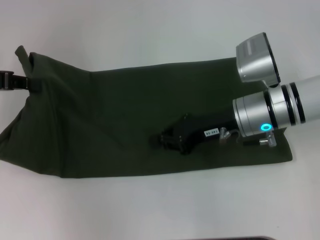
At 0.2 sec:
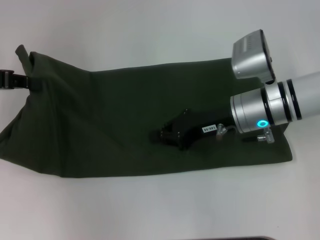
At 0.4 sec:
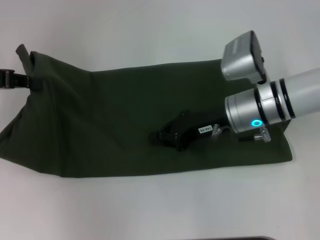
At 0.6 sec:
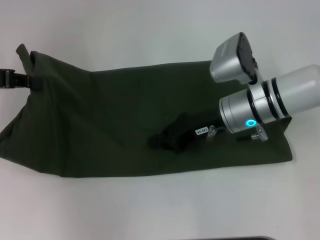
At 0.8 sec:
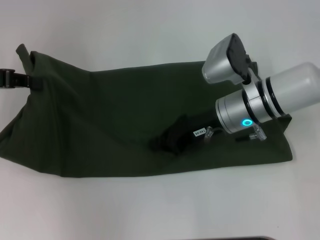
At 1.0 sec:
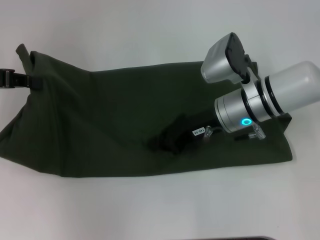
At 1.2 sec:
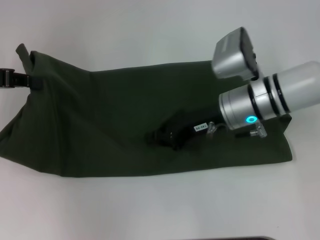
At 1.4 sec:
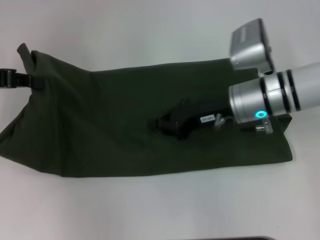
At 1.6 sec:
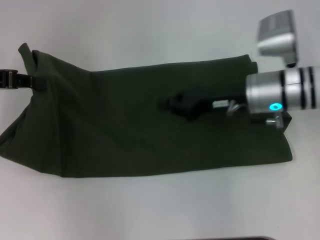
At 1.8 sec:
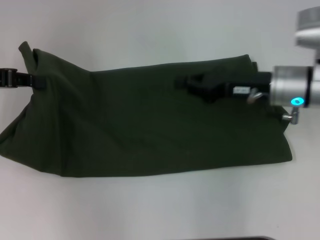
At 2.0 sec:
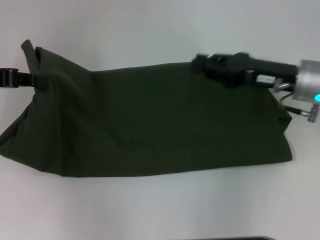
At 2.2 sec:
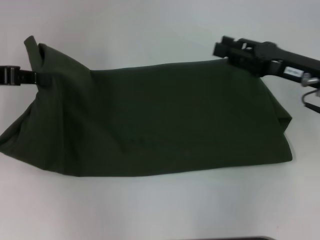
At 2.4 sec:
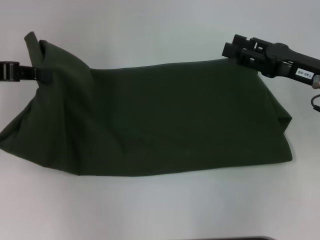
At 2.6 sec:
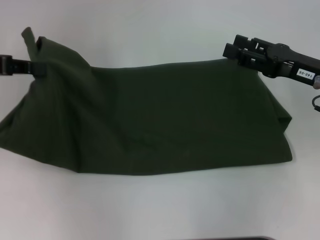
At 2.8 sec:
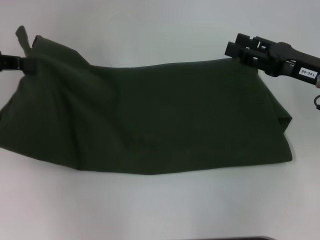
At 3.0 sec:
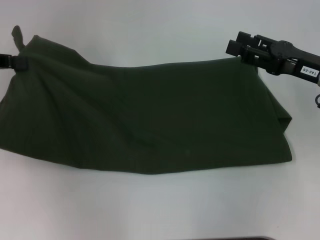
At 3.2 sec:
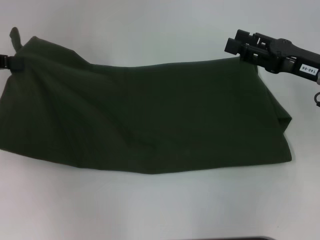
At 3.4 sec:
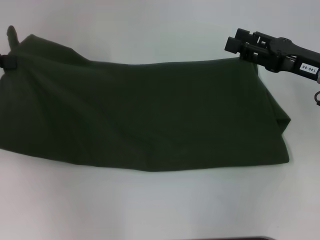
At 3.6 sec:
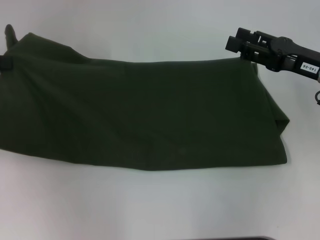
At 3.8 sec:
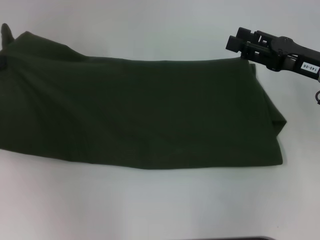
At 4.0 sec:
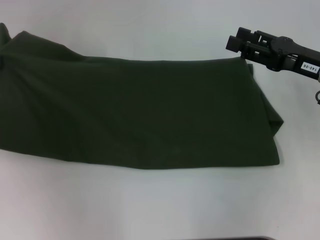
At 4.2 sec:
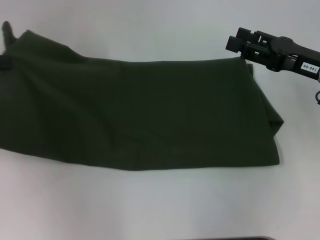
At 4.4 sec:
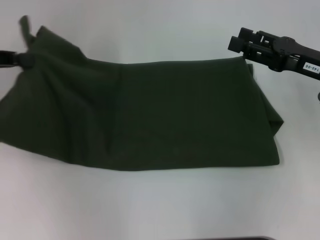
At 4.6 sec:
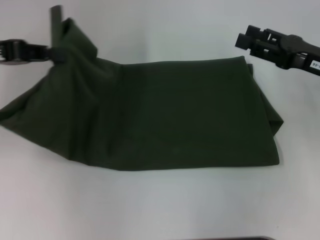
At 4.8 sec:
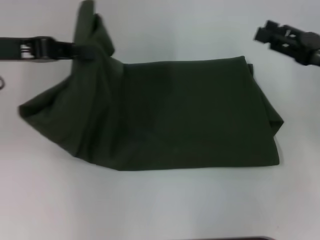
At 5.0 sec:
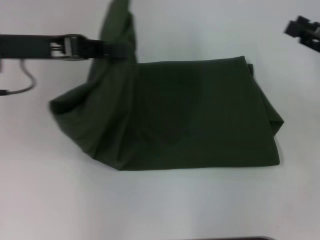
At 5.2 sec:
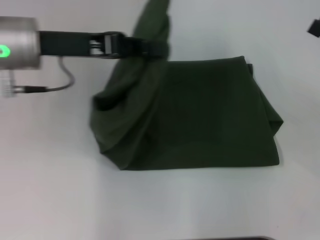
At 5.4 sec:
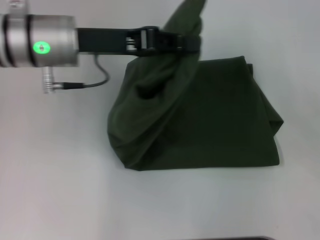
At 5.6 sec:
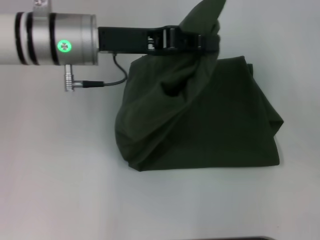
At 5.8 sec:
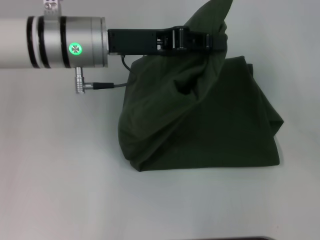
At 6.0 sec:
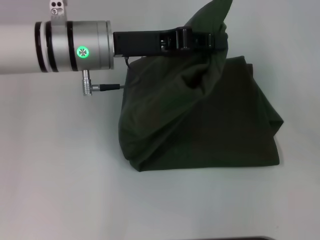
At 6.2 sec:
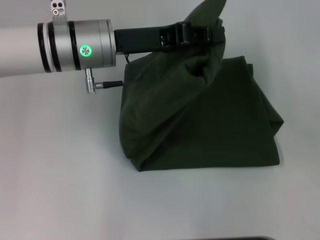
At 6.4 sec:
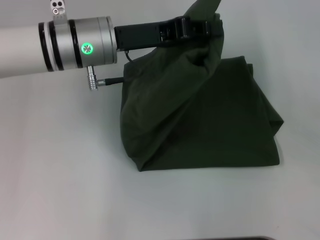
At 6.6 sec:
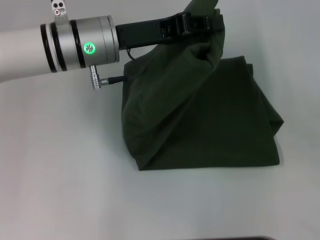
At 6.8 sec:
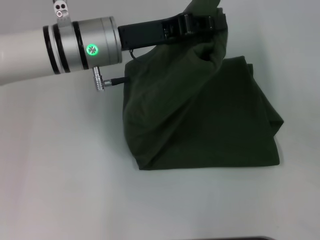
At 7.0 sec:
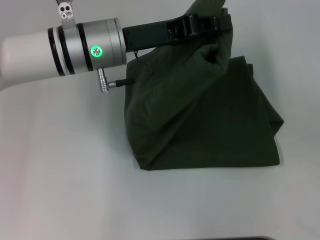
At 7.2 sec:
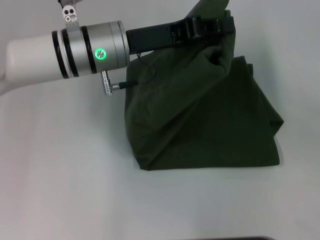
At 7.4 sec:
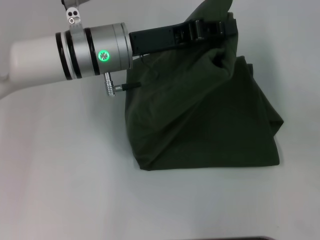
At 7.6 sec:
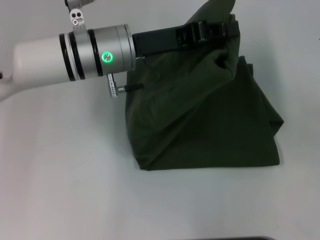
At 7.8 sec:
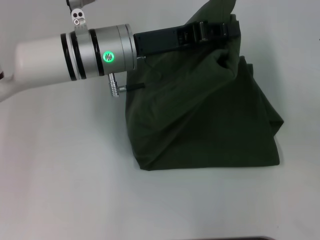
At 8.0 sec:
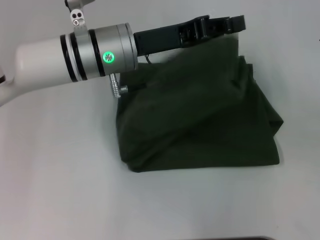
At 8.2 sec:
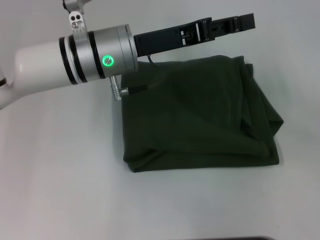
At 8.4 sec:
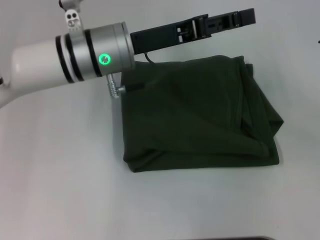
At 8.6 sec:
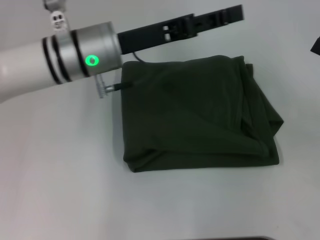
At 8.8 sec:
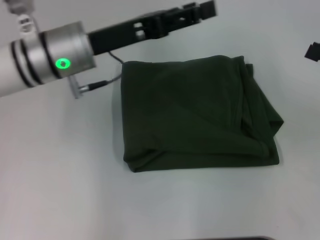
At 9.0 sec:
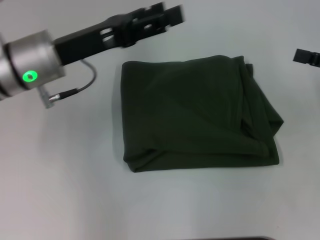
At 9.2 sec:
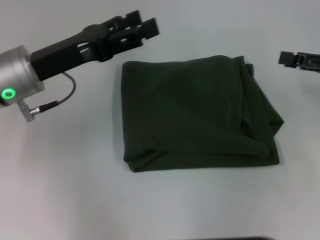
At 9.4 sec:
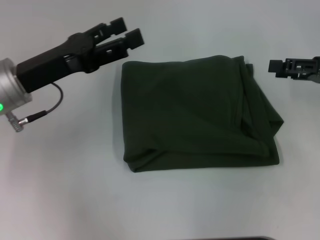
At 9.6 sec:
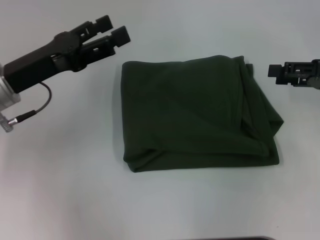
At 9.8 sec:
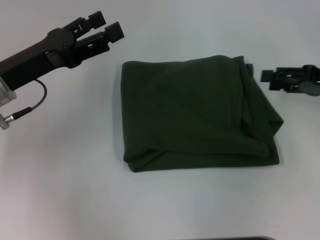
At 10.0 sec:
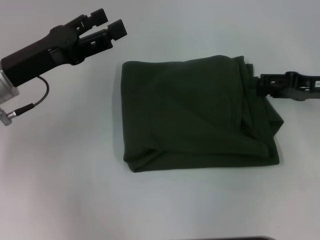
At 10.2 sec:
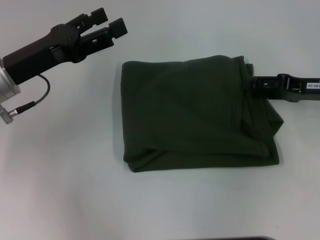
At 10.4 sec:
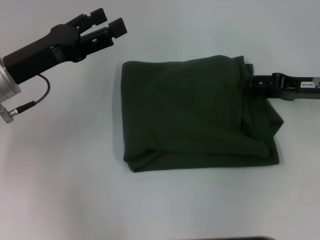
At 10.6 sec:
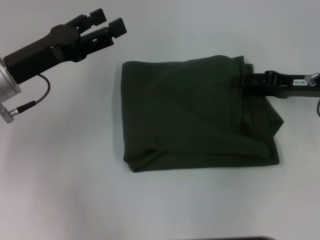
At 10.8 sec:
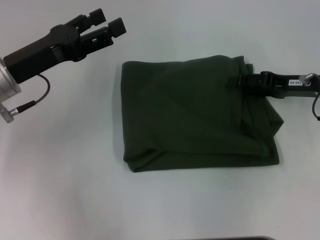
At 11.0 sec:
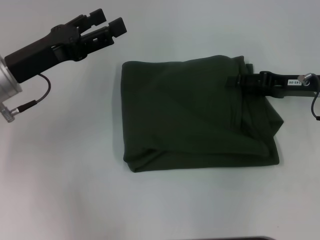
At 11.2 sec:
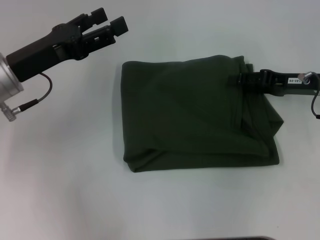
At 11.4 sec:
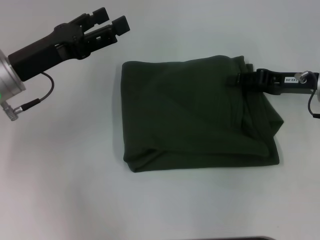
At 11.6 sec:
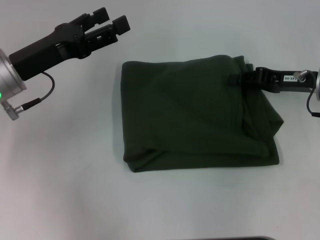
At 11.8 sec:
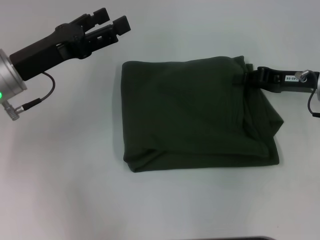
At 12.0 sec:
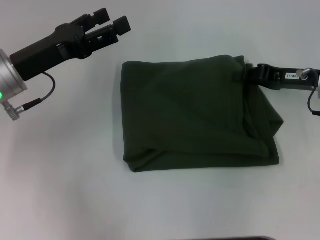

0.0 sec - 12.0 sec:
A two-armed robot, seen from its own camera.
Step, 0.0 sec - 8.2 sec: Fold the clothes with your left hand.
0.0 sec - 1.6 sec: The grippers make only small movements.
1.6 sec - 3.0 sec: The right gripper shifts some 10 cm to the right, and opens its fingers.
3.0 sec - 4.4 sec: The grippers stay close to where they were, moving slightly.
4.4 sec - 6.0 sec: The right gripper goes some 10 cm to the right and backward; the left gripper travels to the right by roughly 20 cm.
6.0 sec - 7.6 sec: The grippers make only small movements.
7.6 sec - 9.0 sec: The left gripper is displaced to the left by some 10 cm, and opens.
9.0 sec - 10.4 sec: Both grippers move to the left, about 5 cm.
10.4 sec - 12.0 sec: The right gripper closes its fingers.

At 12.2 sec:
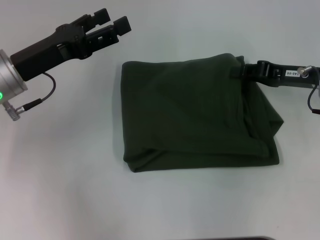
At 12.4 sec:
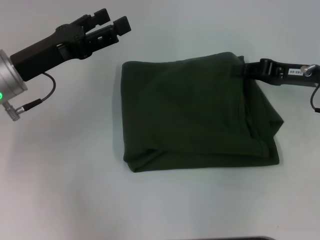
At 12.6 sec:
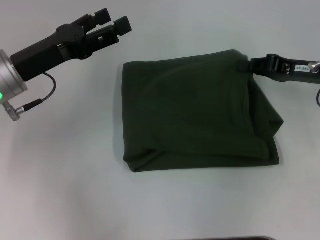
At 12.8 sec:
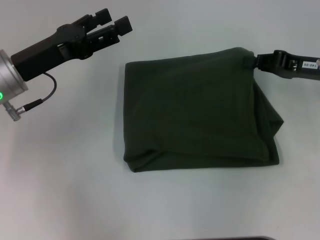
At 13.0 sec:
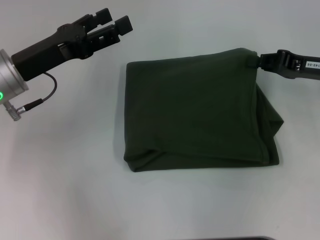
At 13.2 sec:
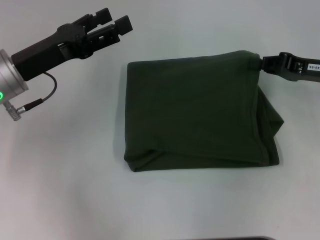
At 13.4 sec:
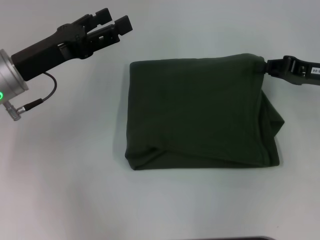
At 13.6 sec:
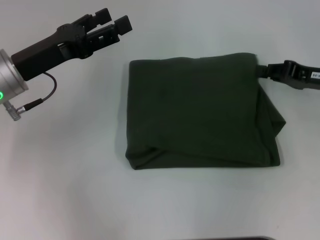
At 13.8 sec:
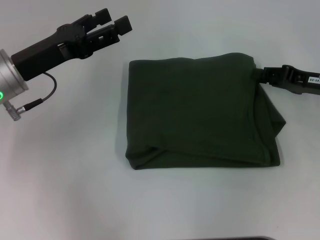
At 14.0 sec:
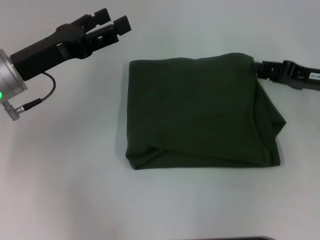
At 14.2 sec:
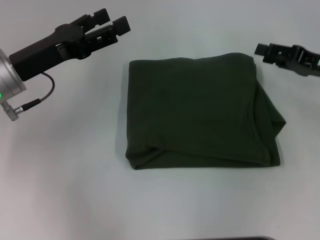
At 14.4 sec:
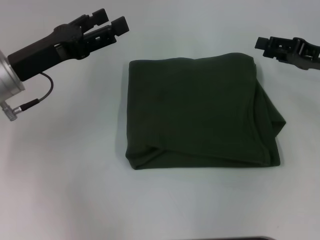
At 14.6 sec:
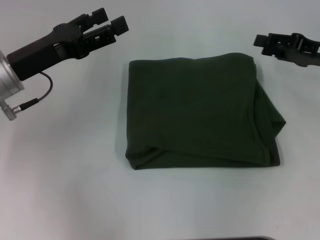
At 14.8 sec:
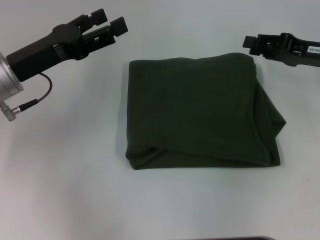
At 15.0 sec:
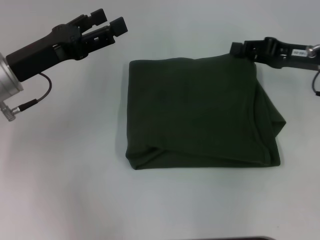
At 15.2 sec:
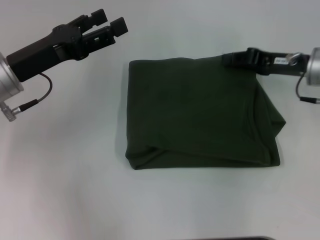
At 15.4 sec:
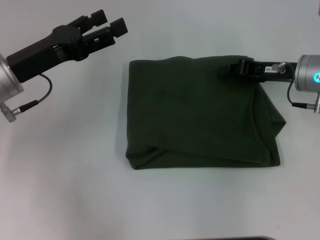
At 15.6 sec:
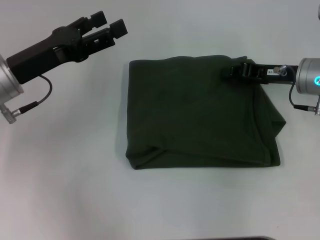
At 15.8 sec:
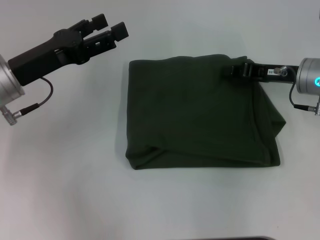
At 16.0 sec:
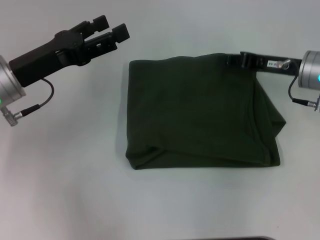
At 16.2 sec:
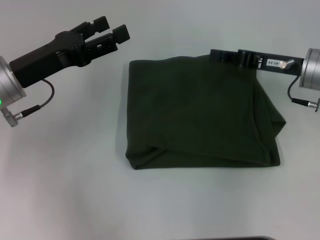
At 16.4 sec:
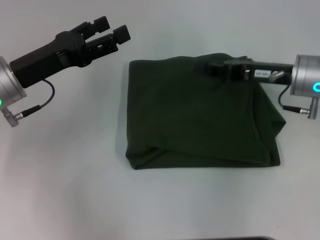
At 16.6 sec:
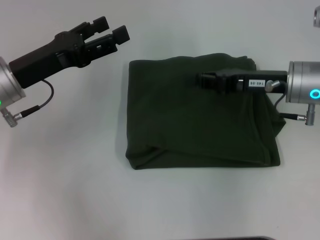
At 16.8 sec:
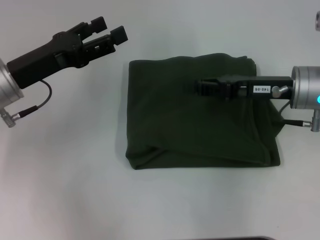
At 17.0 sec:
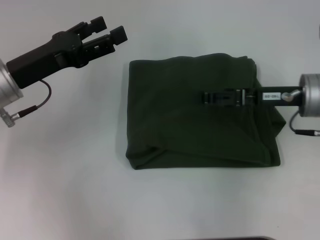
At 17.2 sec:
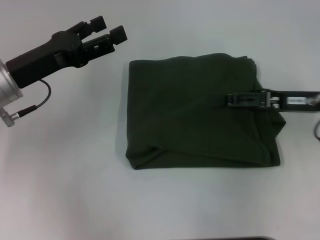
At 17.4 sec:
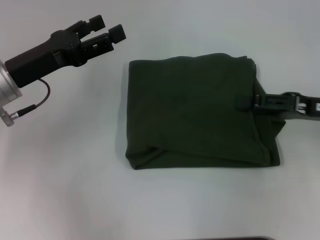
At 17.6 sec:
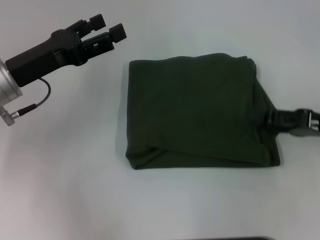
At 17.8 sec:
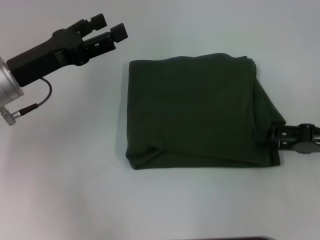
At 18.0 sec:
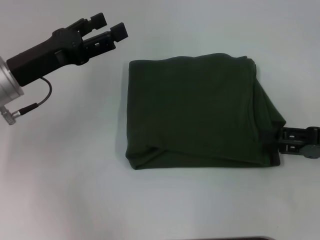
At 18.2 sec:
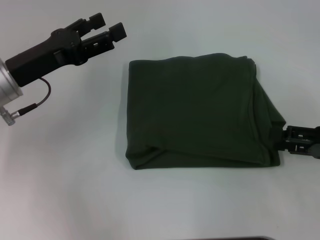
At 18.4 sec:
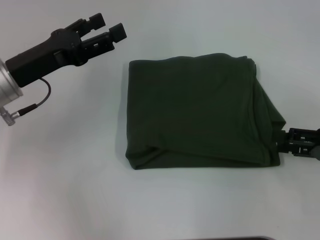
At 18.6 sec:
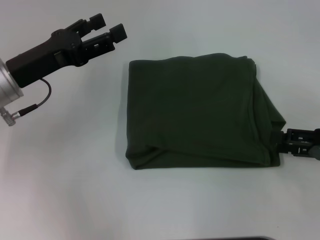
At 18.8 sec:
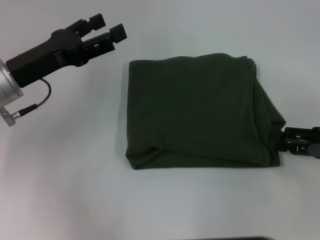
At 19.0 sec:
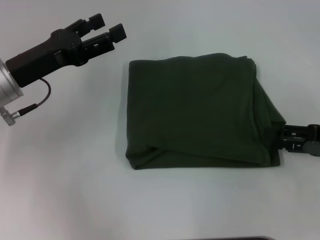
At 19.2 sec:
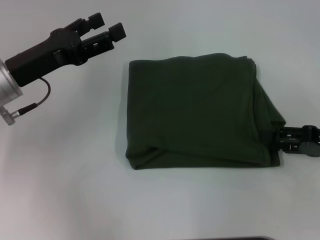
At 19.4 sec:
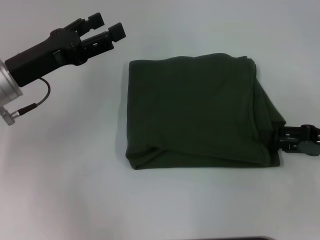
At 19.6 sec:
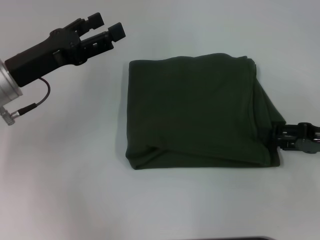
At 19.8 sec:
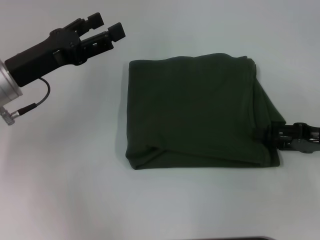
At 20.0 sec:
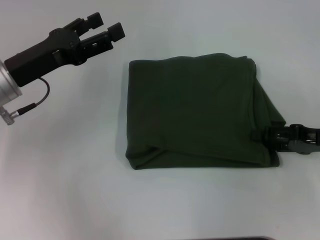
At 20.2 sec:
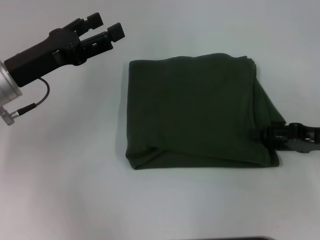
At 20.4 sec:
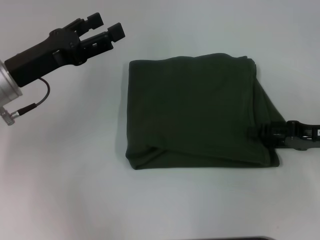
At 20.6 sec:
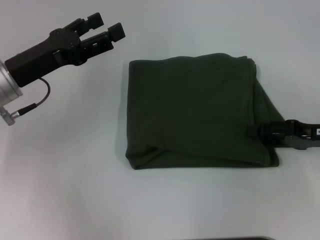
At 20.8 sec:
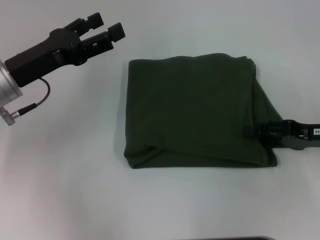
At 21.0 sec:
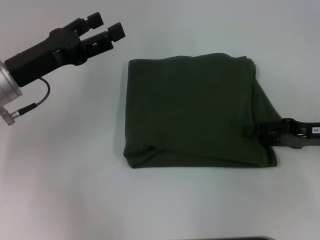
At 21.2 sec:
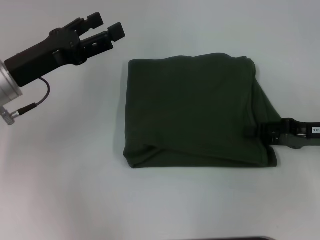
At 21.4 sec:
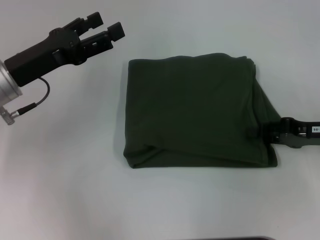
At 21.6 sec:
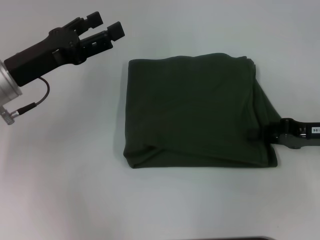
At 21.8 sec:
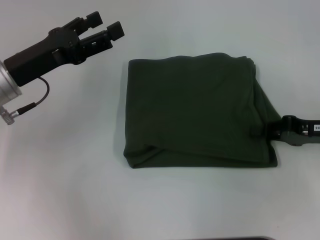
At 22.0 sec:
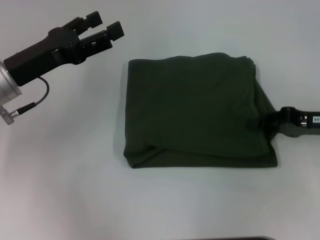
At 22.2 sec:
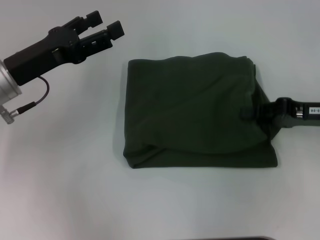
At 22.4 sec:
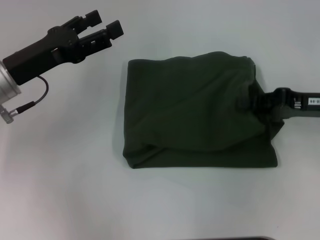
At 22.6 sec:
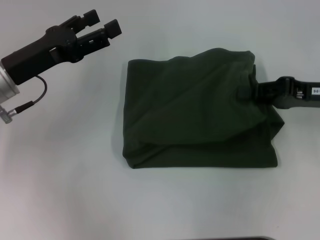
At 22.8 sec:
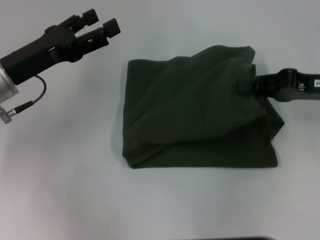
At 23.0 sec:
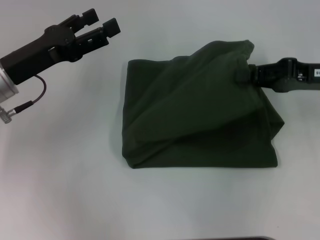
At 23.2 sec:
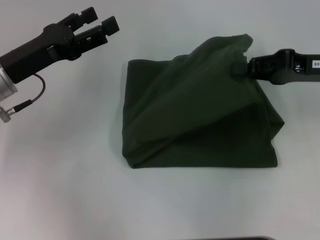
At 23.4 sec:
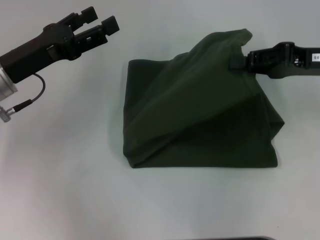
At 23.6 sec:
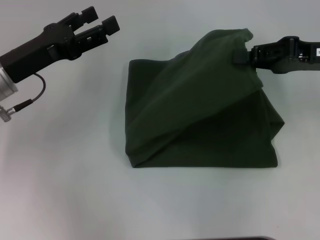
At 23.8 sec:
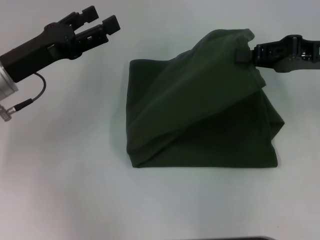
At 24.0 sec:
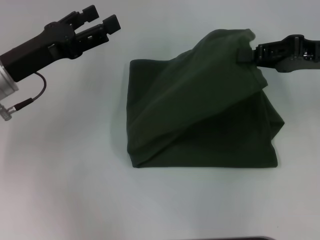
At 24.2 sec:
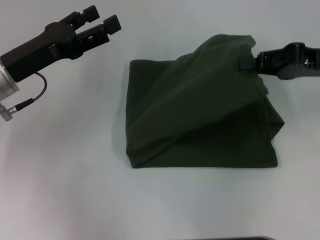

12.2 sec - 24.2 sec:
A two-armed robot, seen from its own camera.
12.2 sec - 13.8 sec: The grippers make only small movements.
13.8 sec - 15.2 sec: The right gripper shifts about 5 cm to the left, and opens and closes again.
16.6 sec - 18.2 sec: The right gripper moves to the right and backward, some 15 cm, and opens up.
18.2 sec - 21.2 sec: The grippers stay close to where they were, moving slightly.
21.2 sec - 22.6 sec: The right gripper moves roughly 5 cm, and closes.
22.6 sec - 24.2 sec: The grippers move only a little.
